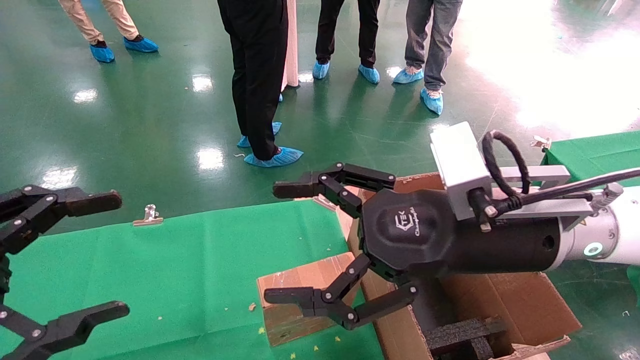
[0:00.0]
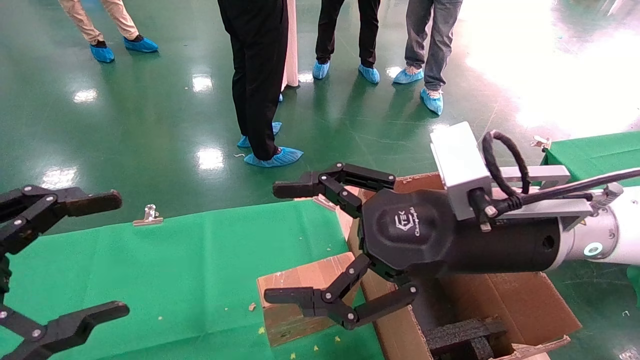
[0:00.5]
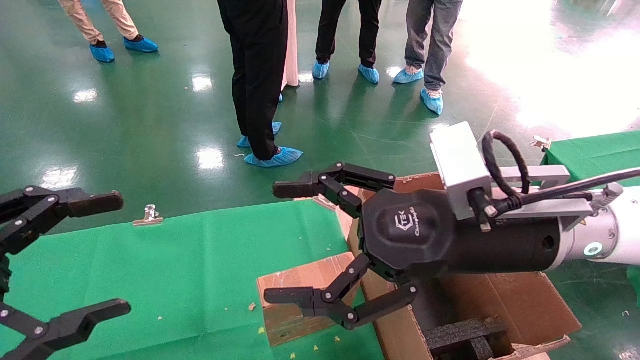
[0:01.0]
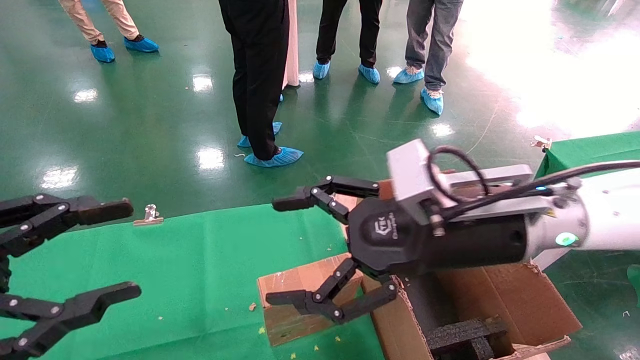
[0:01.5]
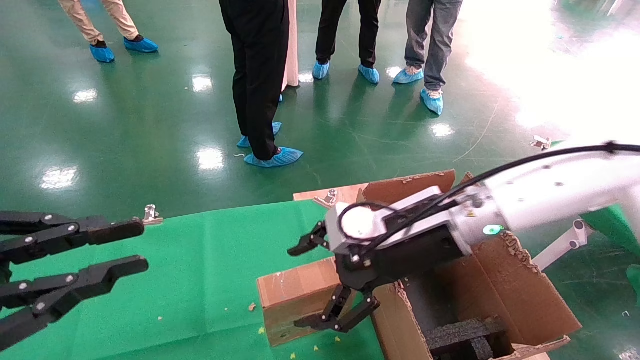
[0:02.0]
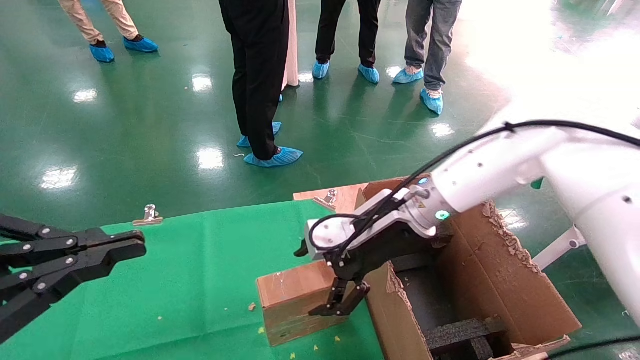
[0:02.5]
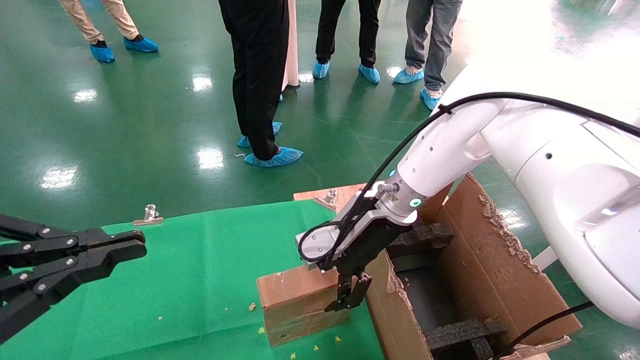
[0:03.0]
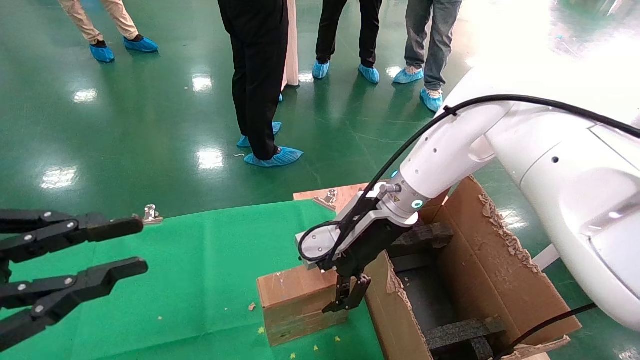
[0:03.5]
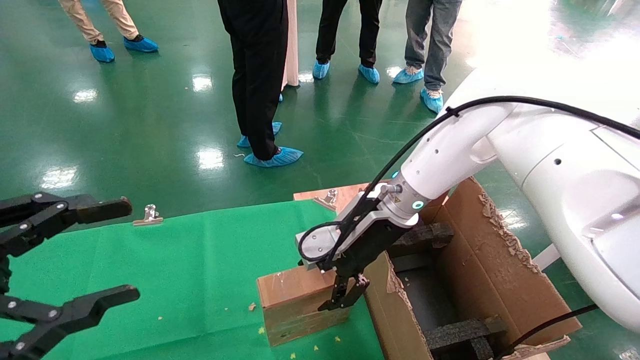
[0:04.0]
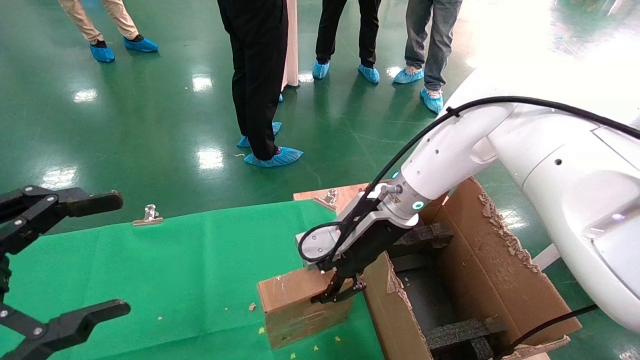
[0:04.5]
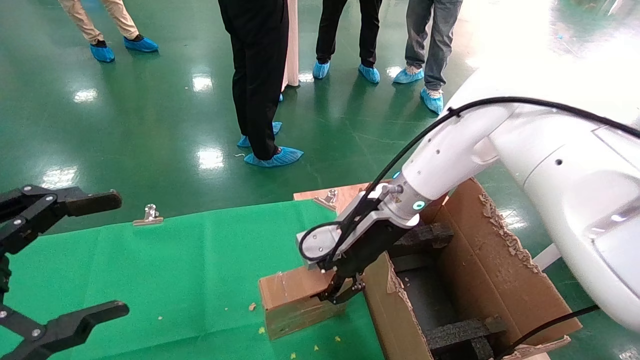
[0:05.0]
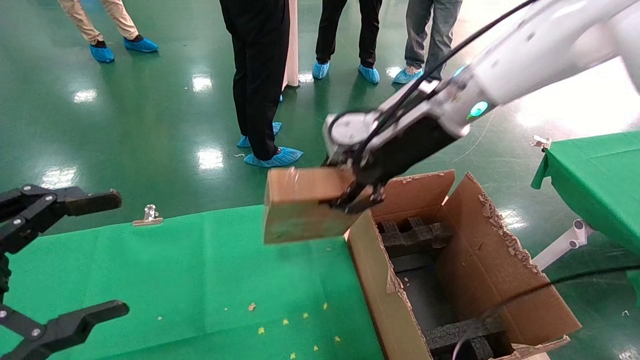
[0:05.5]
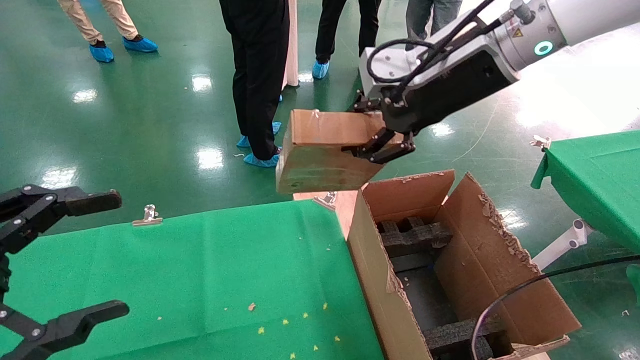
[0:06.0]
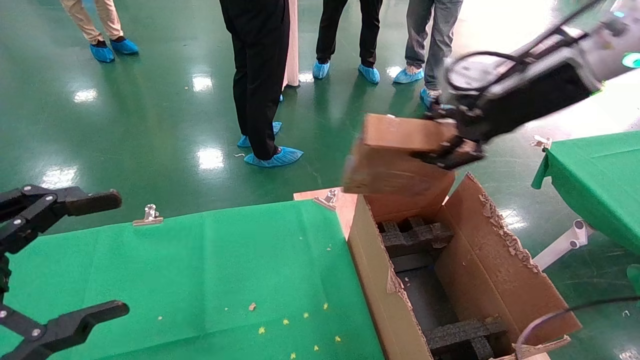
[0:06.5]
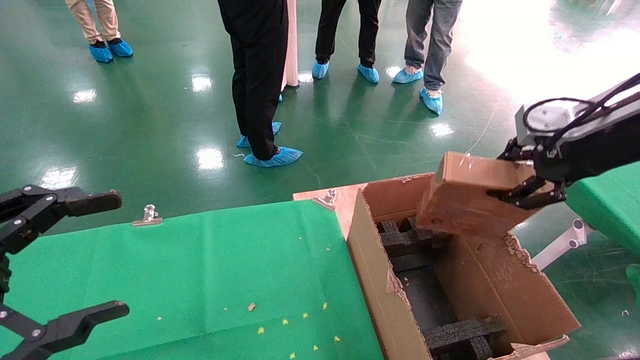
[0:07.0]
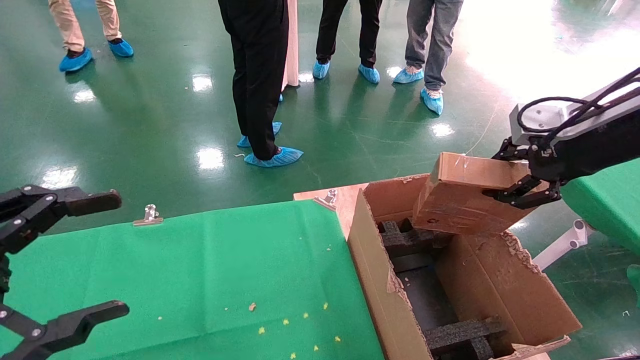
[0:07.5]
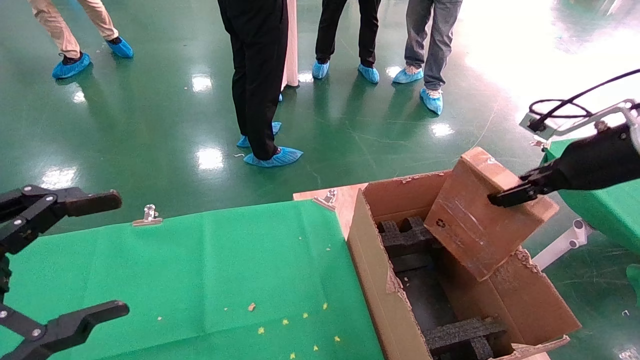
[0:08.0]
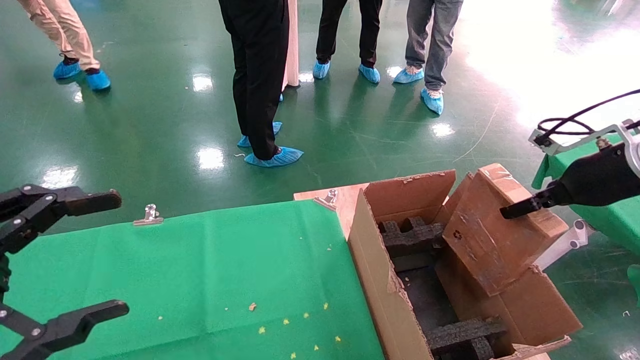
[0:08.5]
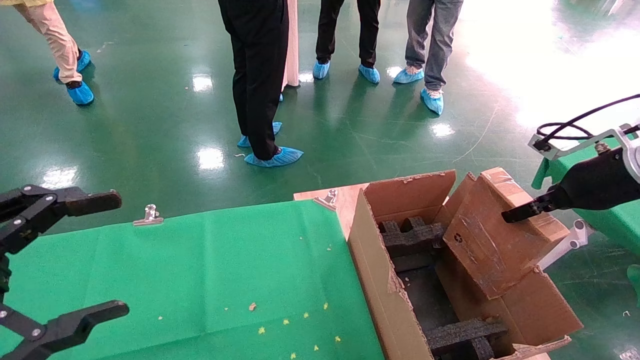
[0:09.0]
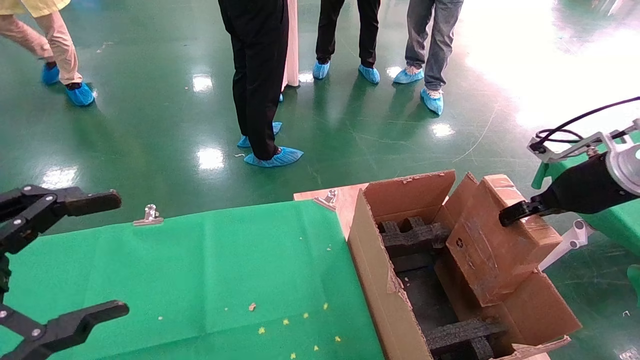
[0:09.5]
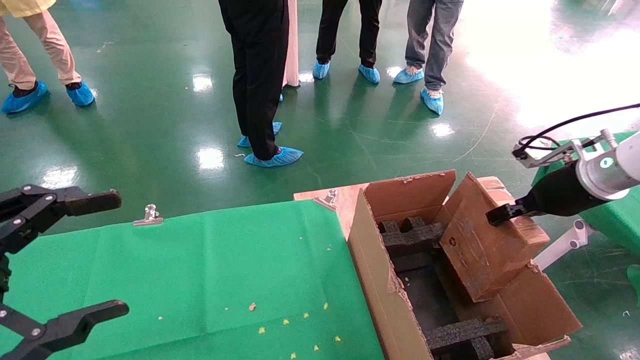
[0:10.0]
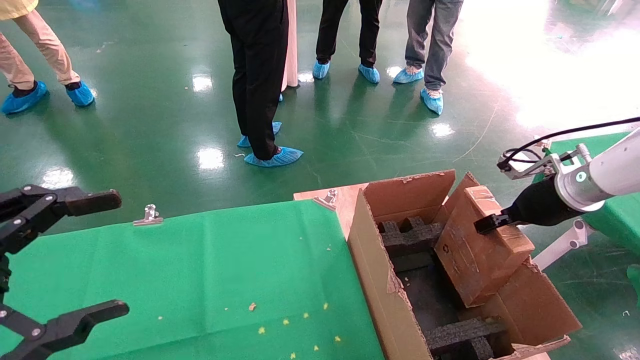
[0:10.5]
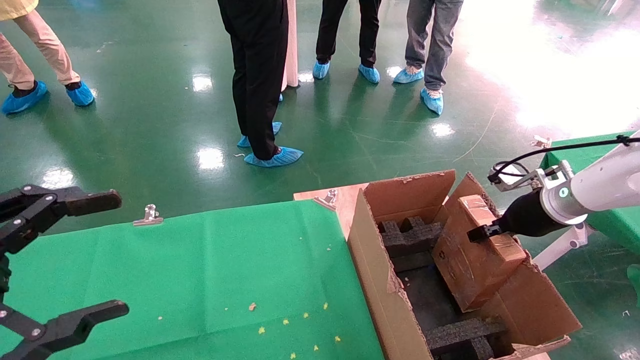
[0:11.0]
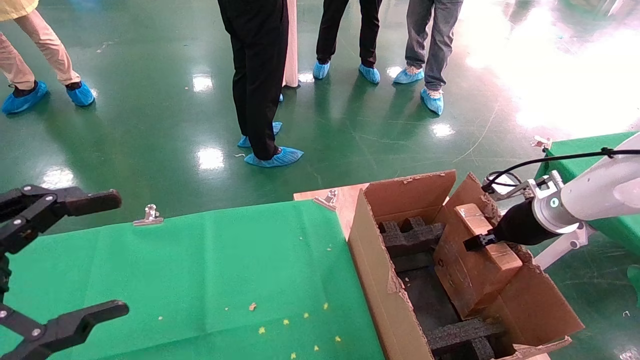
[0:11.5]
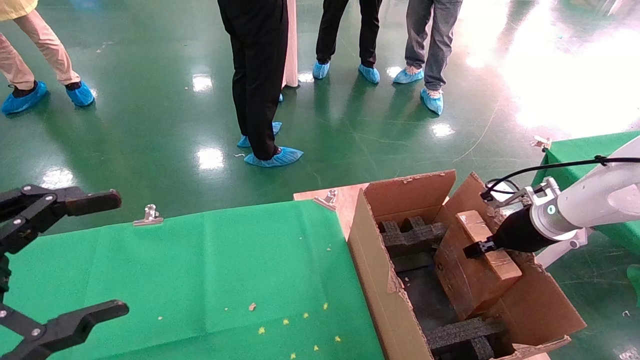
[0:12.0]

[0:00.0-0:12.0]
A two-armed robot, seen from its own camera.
Task of the whole recording: using a robotic arm to pick up a cardboard box and palace it the carton.
Step, 0:01.5 to 0:04.5: Pick up the mouse and the power cord paper box.
0:00.0 to 0:02.0: The left gripper closes its fingers; the right gripper shifts approximately 10 cm forward.
0:02.0 to 0:04.0: The right gripper shifts some 10 cm forward.
0:04.0 to 0:06.0: The left gripper opens; the right gripper moves upward and to the right, about 20 cm, and closes up.
0:06.0 to 0:08.0: The right gripper travels to the right and downward by approximately 25 cm.
0:08.0 to 0:10.0: The right gripper shifts approximately 5 cm downward.
0:10.0 to 0:12.0: The right gripper goes approximately 10 cm downward.

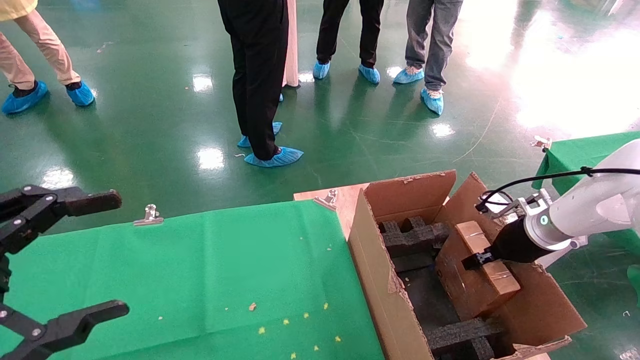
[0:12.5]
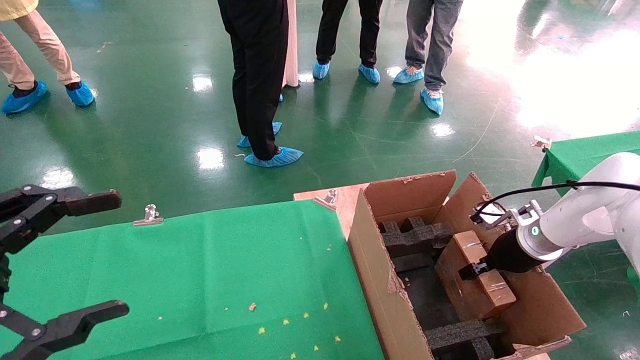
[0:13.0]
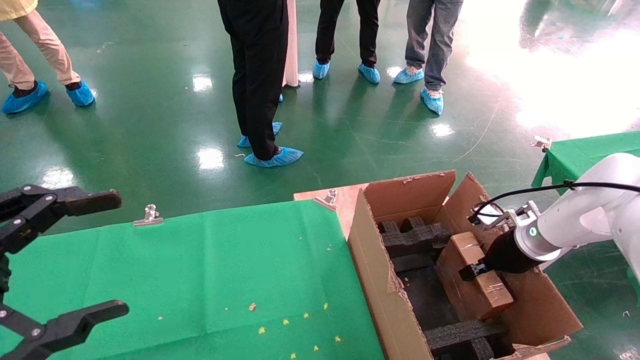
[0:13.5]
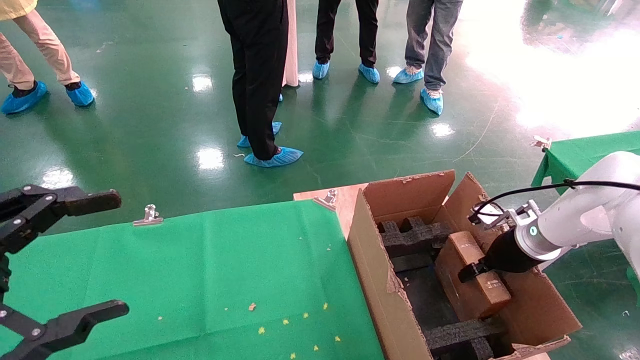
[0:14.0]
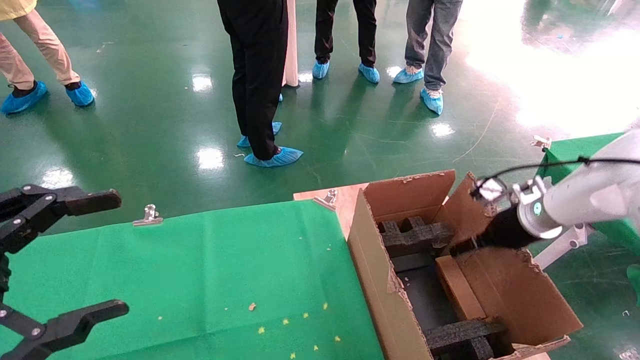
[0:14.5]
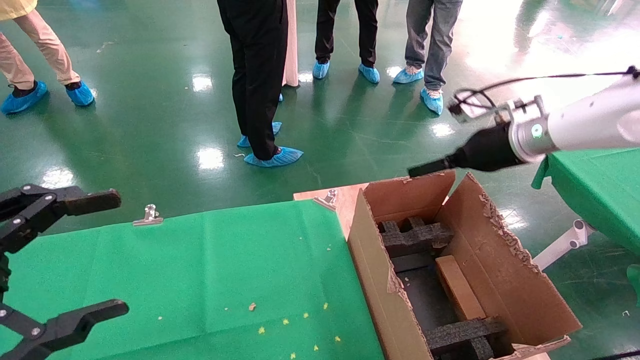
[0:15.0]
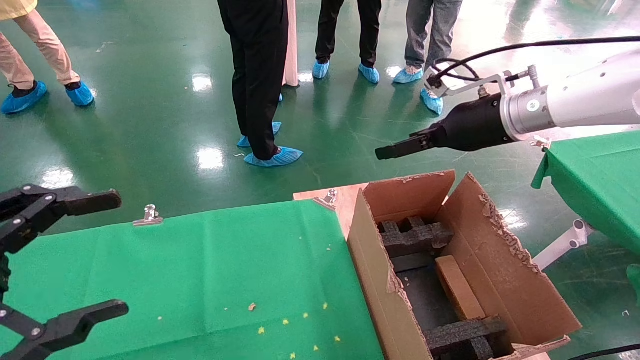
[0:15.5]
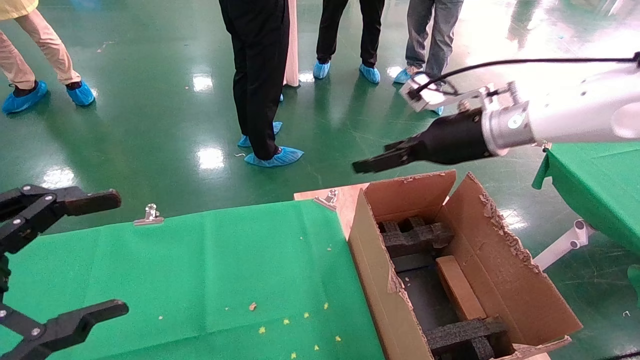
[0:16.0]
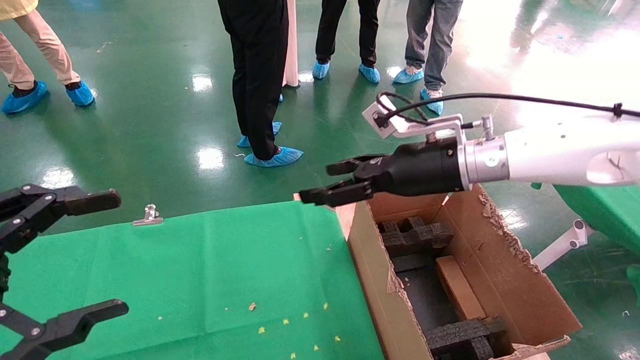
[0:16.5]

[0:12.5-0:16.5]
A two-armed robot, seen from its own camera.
Task of the whole recording: using a robotic arm to pick up a cardboard box and palace it the carton.
Step, 0:12.5 to 0:14.5: Place the mouse and the power cord paper box into the container.
0:12.5 to 0:14.5: The right gripper opens its fingers.
0:14.5 to 0:16.5: The right gripper travels to the left and upward by approximately 20 cm.
